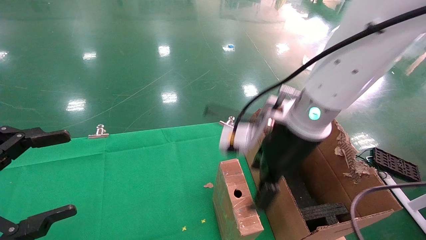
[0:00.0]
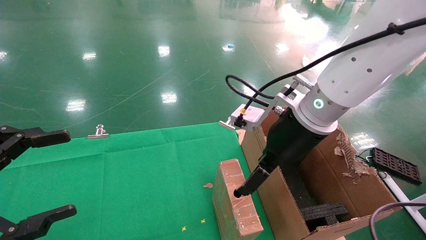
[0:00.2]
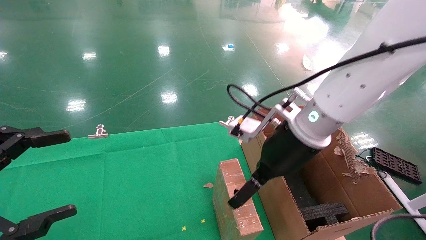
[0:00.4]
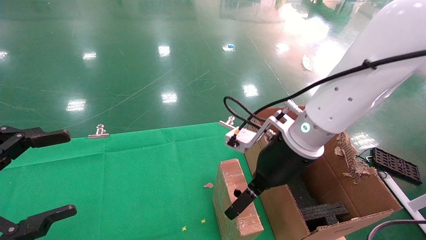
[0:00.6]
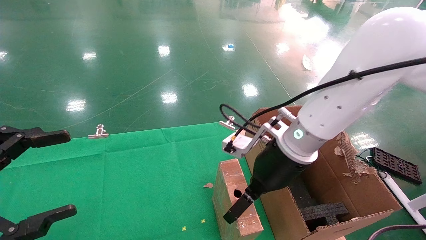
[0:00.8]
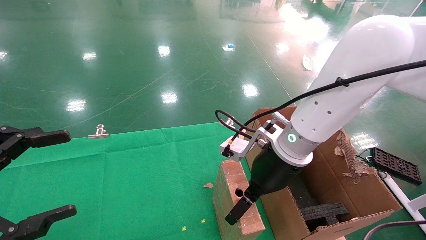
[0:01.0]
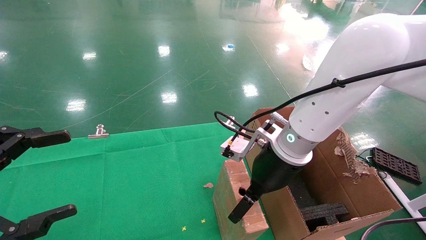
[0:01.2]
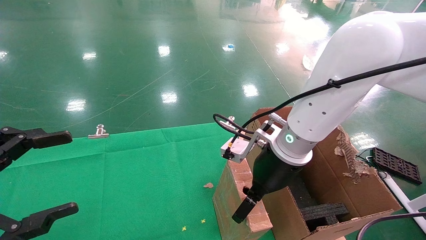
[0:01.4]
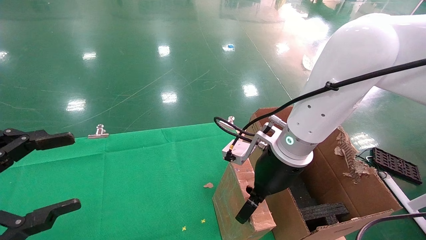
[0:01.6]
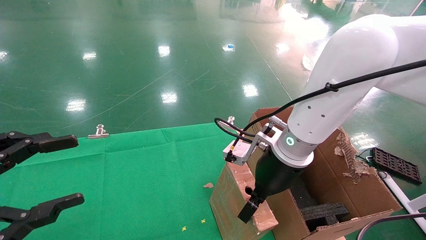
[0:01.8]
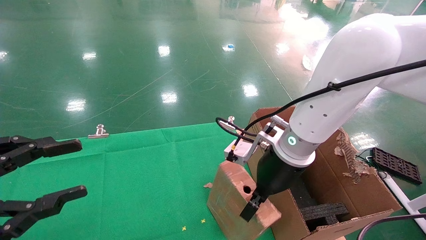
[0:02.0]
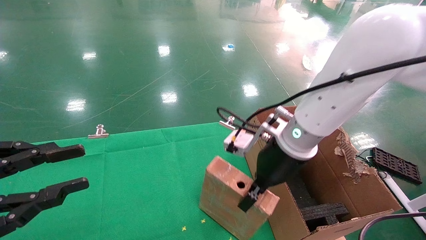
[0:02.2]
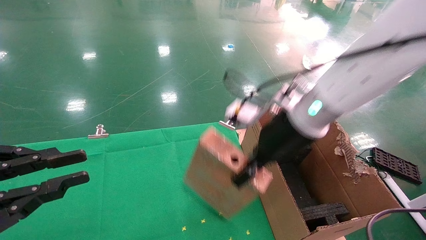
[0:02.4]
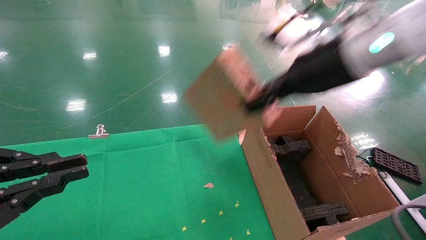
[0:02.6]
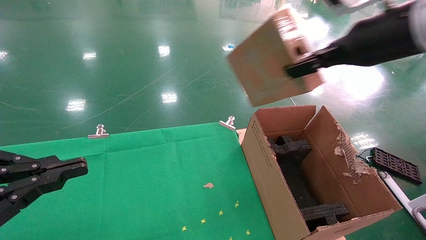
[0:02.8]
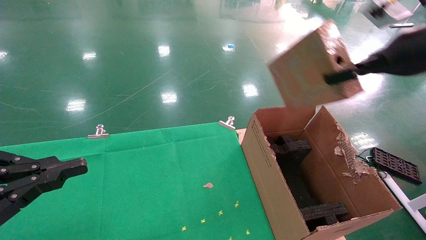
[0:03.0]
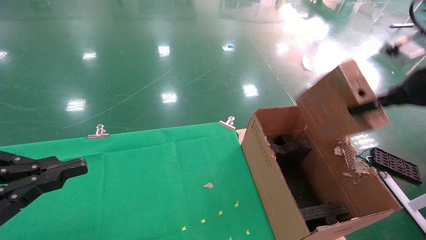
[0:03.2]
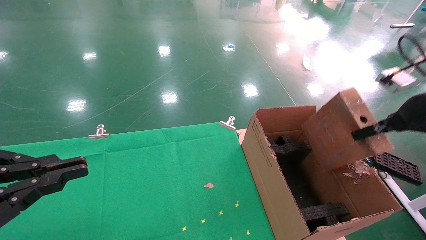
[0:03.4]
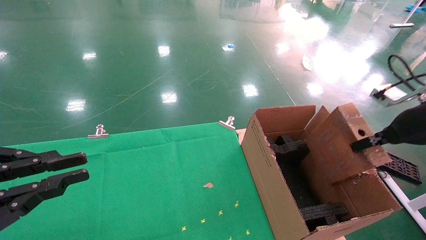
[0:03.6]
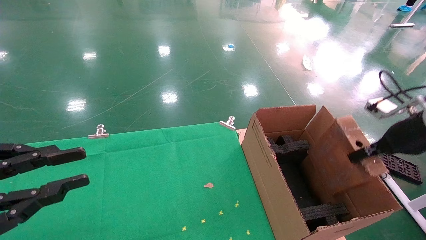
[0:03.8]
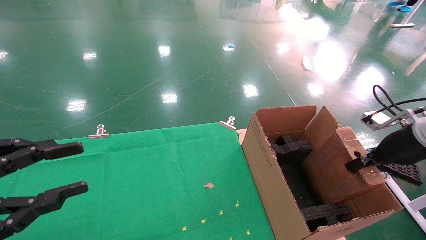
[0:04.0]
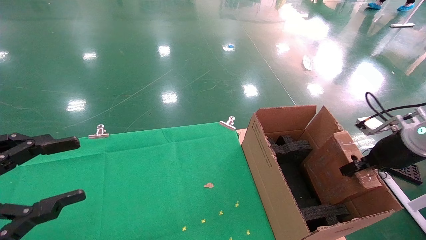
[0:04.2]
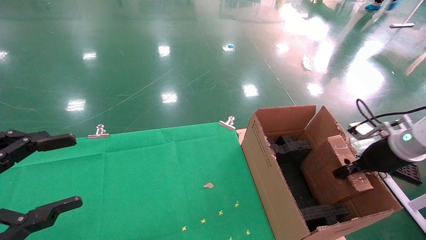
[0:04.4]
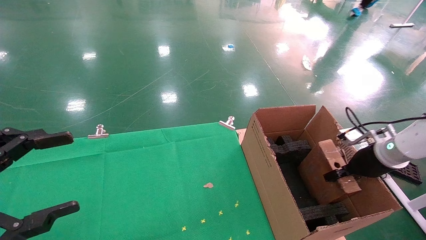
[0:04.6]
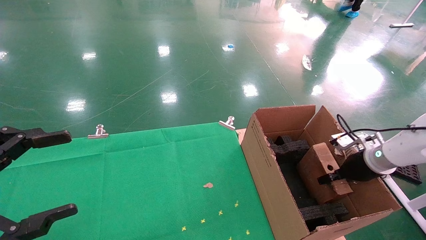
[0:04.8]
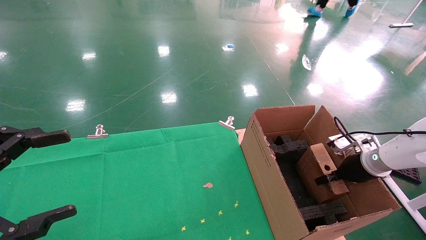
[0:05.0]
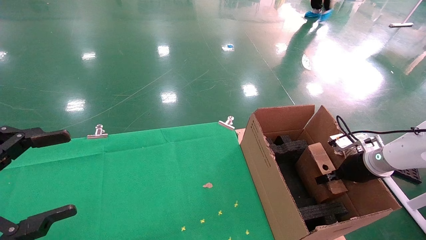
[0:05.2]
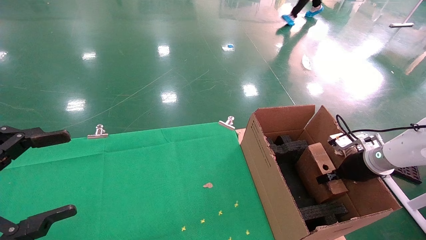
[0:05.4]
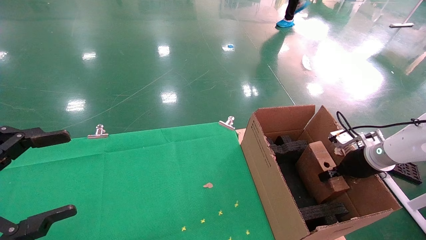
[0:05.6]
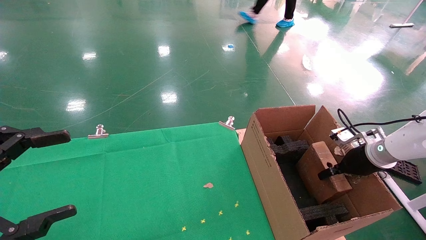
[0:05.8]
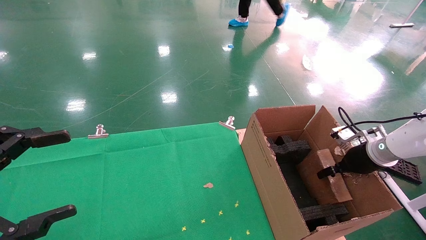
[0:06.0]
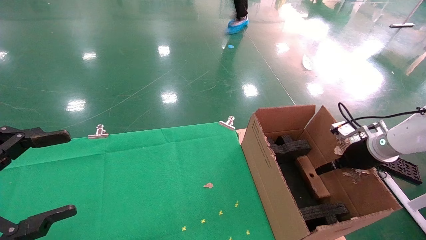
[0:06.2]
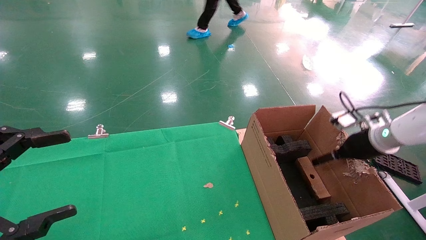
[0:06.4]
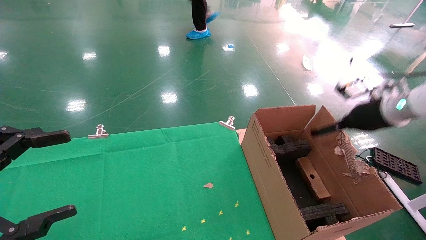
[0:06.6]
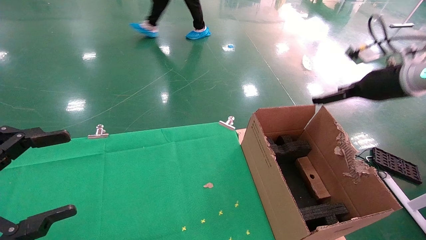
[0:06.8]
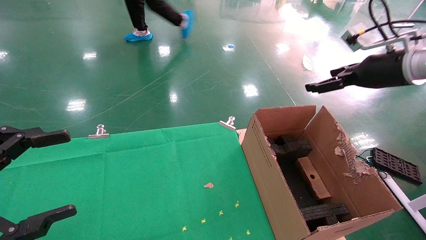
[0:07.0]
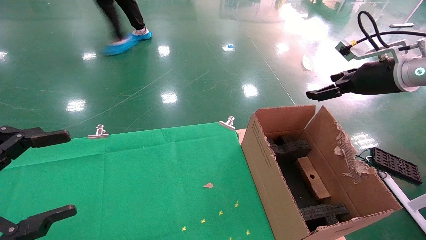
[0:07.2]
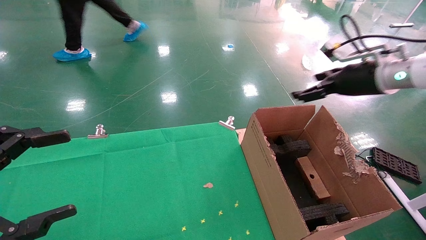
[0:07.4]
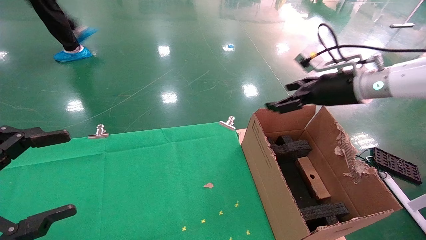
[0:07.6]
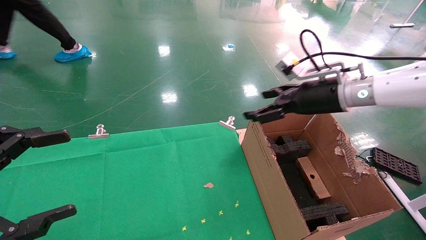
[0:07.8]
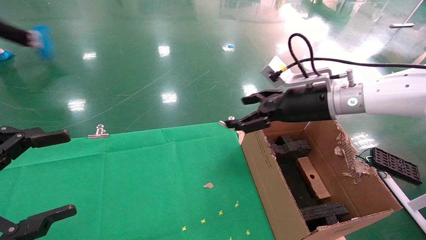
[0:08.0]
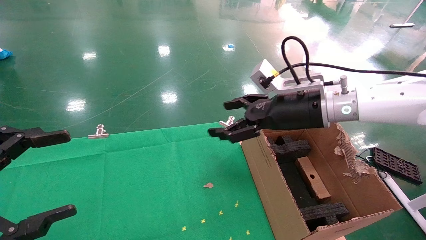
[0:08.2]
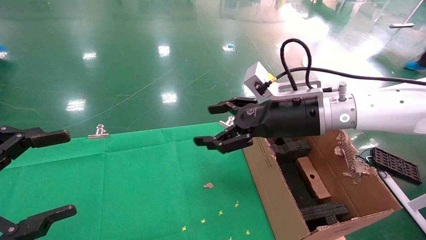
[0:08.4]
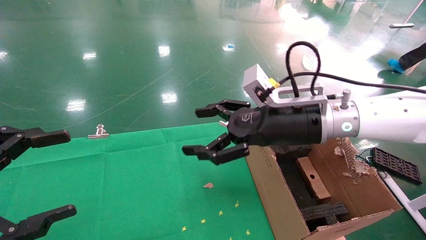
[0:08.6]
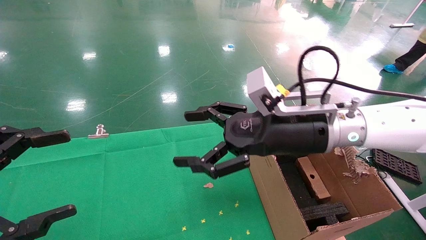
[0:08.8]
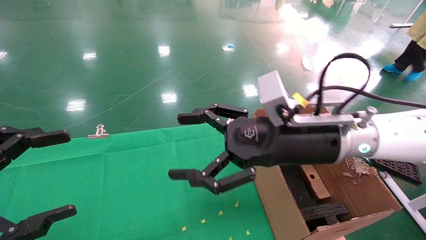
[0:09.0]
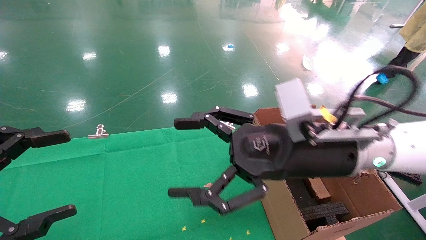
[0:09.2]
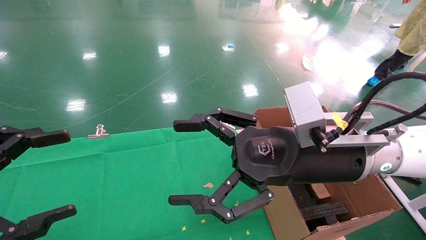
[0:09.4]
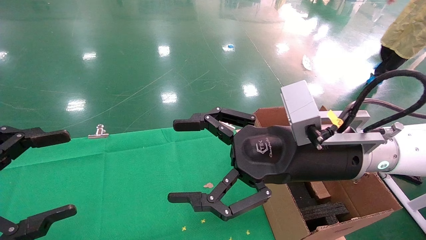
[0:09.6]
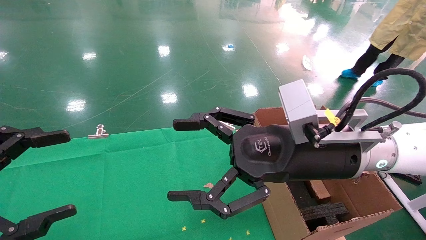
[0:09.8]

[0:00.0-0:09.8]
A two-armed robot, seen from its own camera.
Task of the whole recording: using a robotic arm to pick up a cardboard box and palace it the carton.
Step, 0:00.0 to 0:02.2: Pick up the mouse and the power cord paper box.
Step, 0:02.4 to 0:06.2: Place the mouse and the power cord paper box into the container.
0:00.0 to 0:01.4: The right gripper goes approximately 5 cm downward.
0:01.4 to 0:02.8: The right gripper is displaced upward and to the right by some 25 cm, and closes. Meanwhile the left gripper closes up.
0:02.8 to 0:04.2: The right gripper travels downward and to the right by some 25 cm; the left gripper opens up.
0:04.2 to 0:05.6: The left gripper opens. Meanwhile the right gripper moves downward and forward, about 10 cm.
0:05.6 to 0:07.0: The right gripper goes approximately 20 cm upward, and opens its fingers.
0:07.0 to 0:08.4: The right gripper goes some 20 cm to the left.
0:08.4 to 0:09.8: The right gripper goes roughly 10 cm backward.

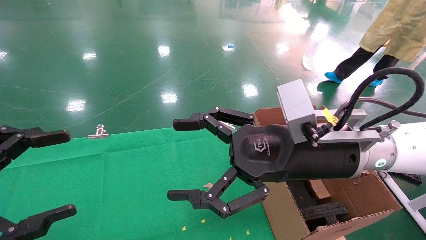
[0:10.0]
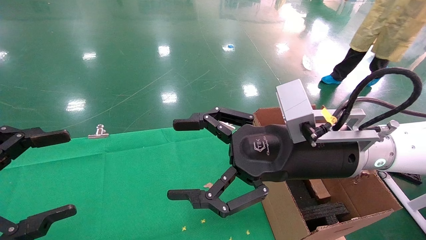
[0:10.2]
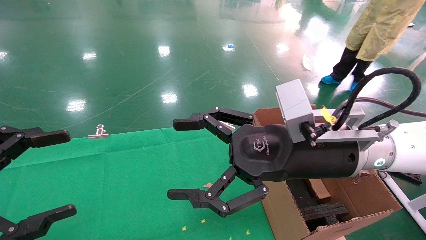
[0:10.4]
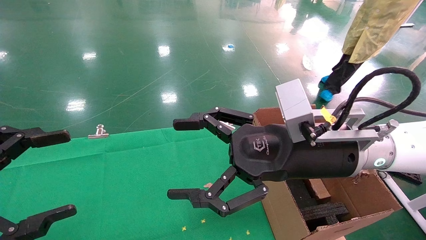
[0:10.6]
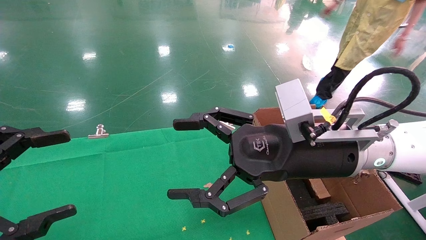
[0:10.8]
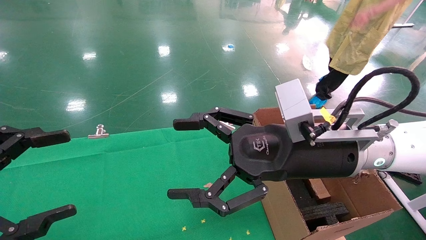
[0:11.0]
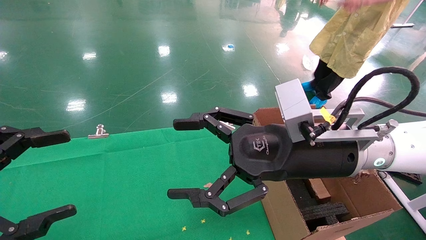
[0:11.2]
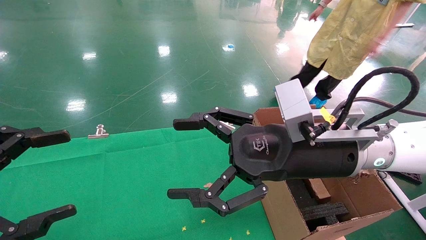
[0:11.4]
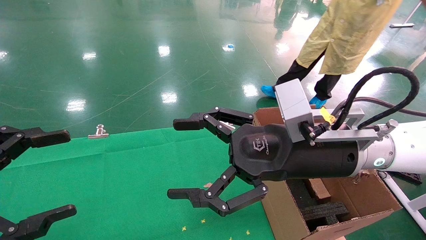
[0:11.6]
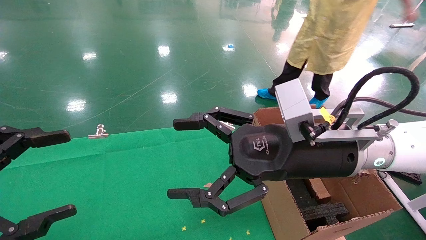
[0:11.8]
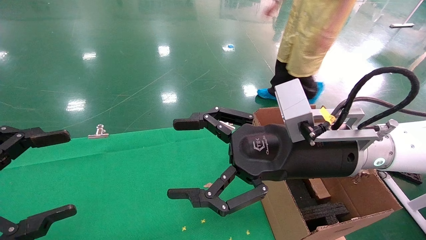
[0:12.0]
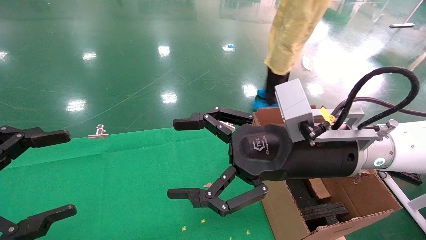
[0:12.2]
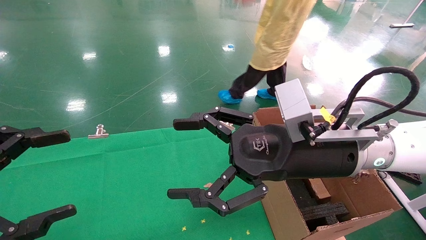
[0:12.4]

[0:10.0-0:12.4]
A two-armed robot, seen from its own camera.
Task of the whole recording: using a robotic arm to pick up a cardboard box and palace it the carton.
0:10.0 to 0:12.4: The two grippers keep their place.
